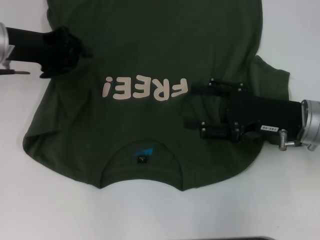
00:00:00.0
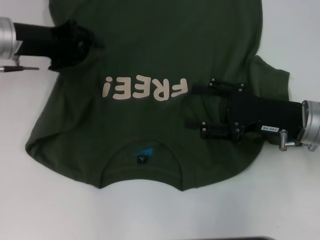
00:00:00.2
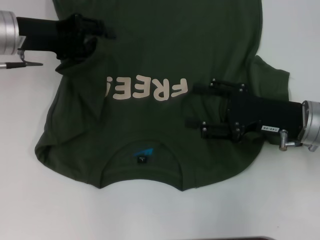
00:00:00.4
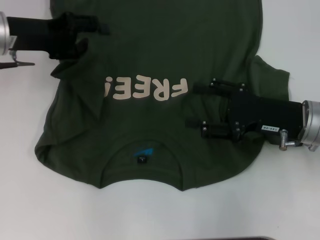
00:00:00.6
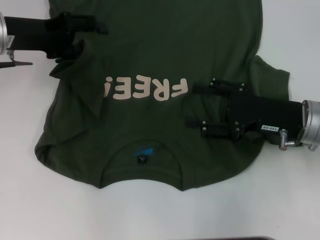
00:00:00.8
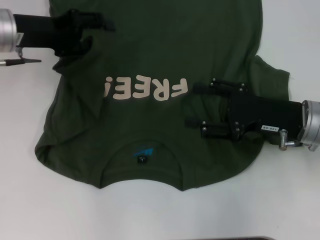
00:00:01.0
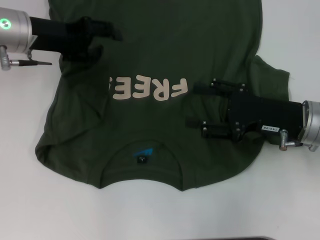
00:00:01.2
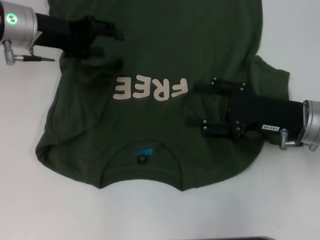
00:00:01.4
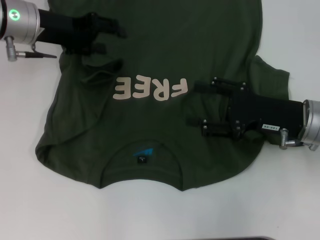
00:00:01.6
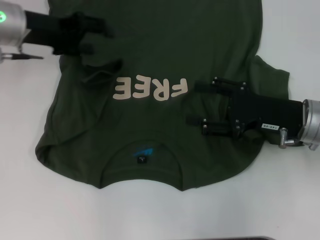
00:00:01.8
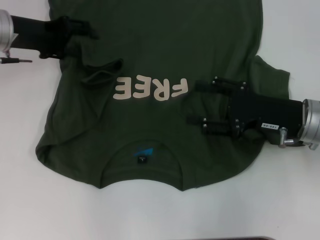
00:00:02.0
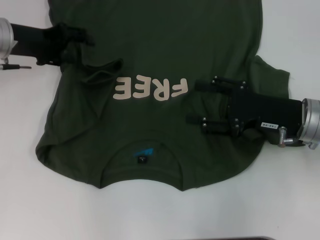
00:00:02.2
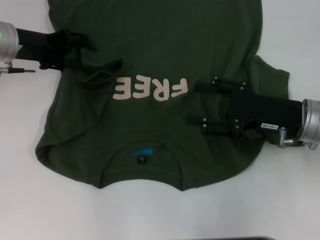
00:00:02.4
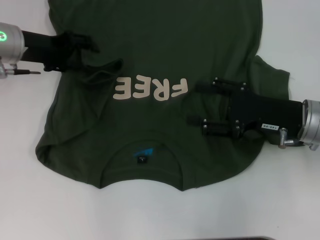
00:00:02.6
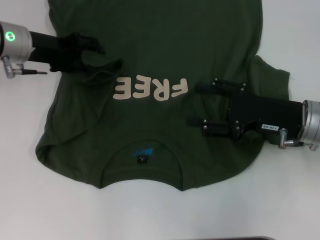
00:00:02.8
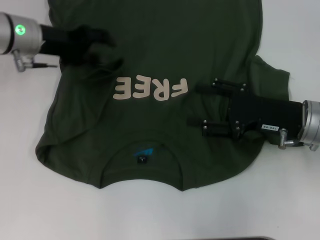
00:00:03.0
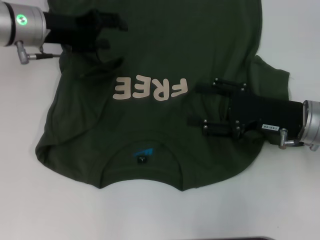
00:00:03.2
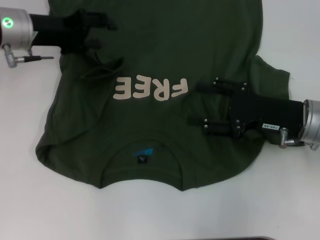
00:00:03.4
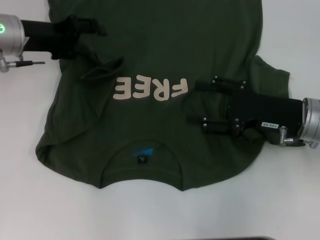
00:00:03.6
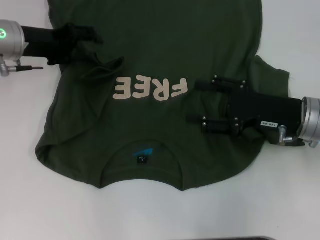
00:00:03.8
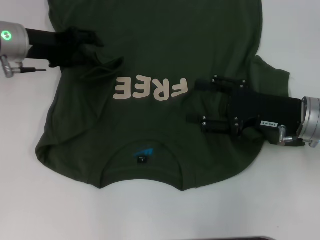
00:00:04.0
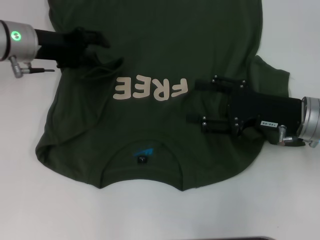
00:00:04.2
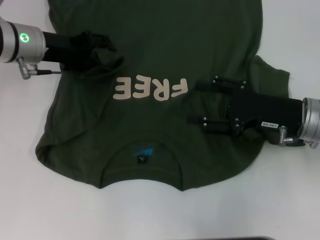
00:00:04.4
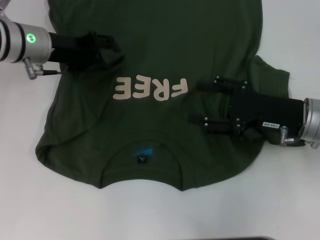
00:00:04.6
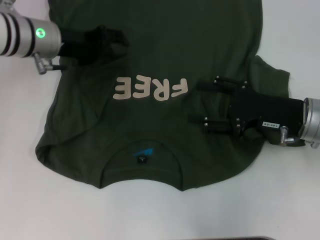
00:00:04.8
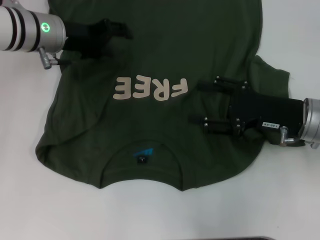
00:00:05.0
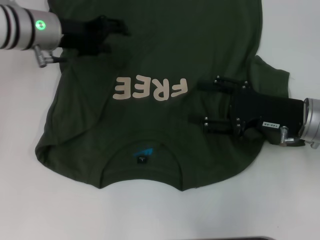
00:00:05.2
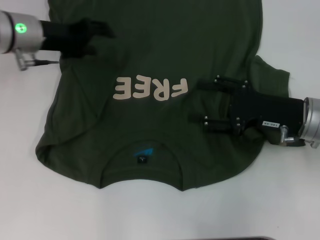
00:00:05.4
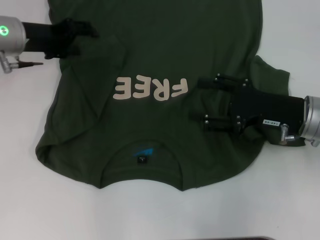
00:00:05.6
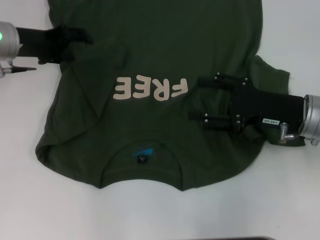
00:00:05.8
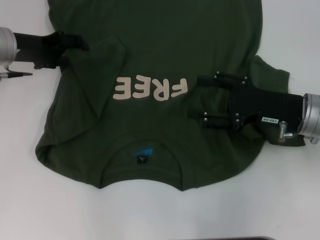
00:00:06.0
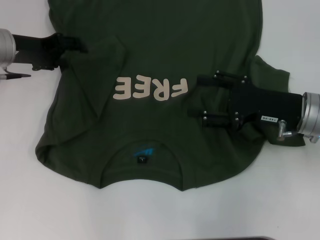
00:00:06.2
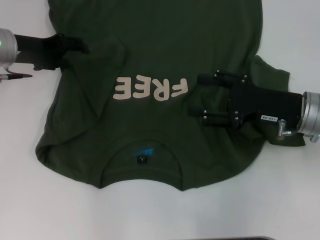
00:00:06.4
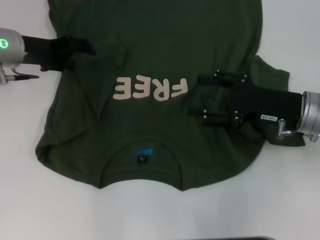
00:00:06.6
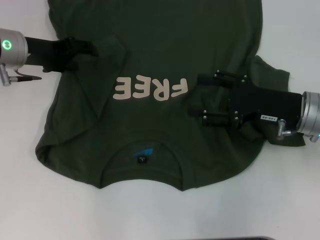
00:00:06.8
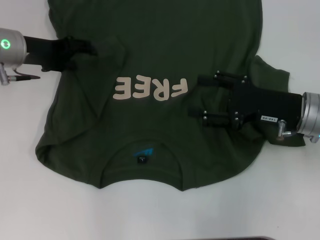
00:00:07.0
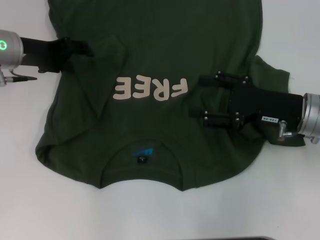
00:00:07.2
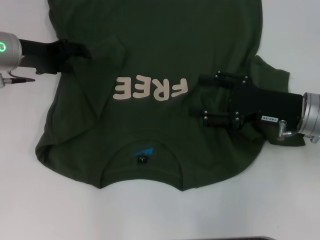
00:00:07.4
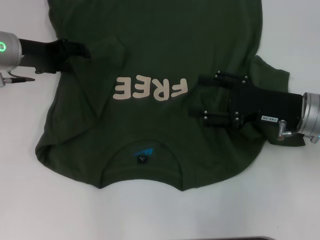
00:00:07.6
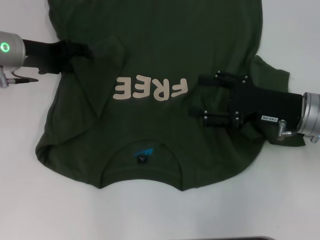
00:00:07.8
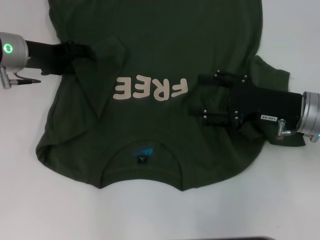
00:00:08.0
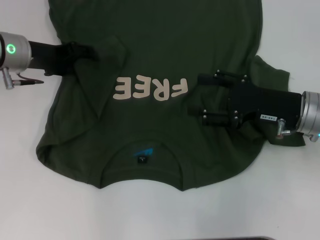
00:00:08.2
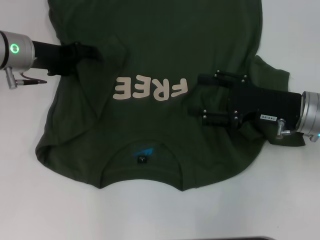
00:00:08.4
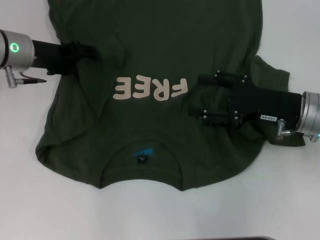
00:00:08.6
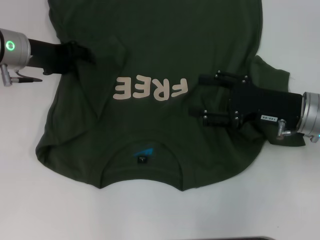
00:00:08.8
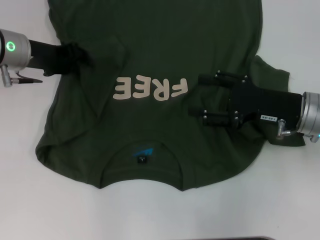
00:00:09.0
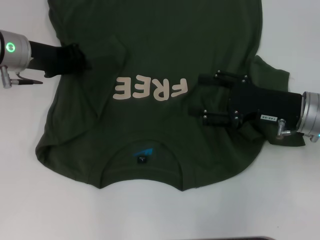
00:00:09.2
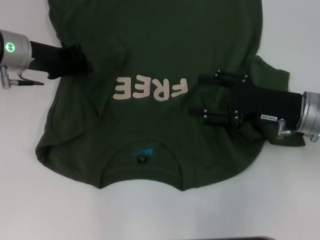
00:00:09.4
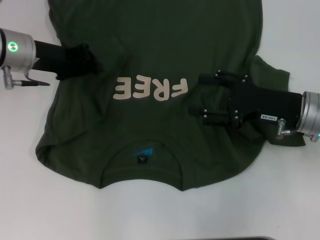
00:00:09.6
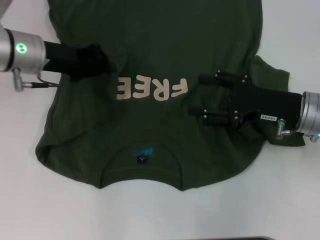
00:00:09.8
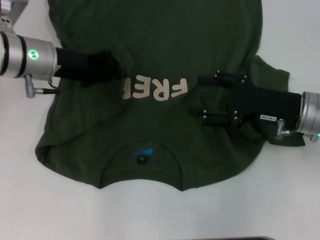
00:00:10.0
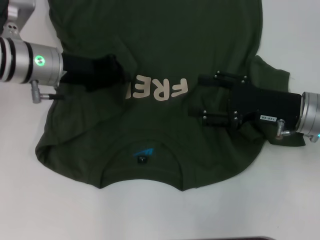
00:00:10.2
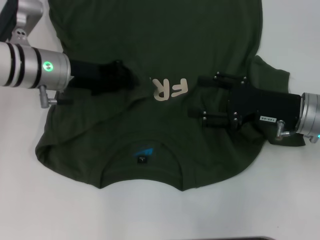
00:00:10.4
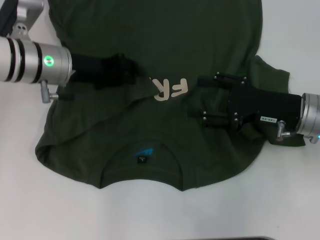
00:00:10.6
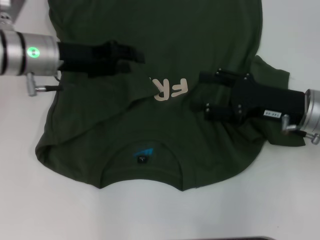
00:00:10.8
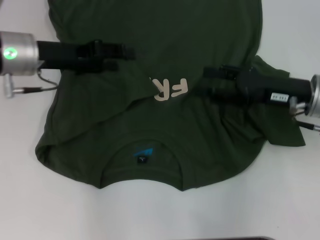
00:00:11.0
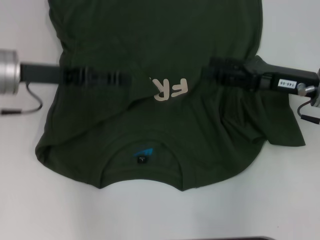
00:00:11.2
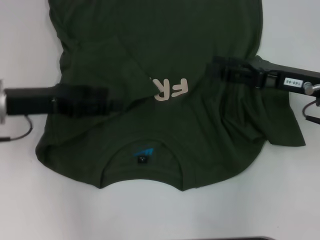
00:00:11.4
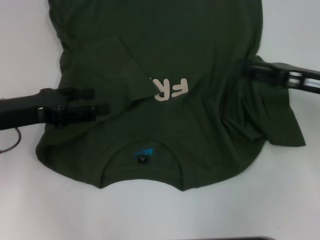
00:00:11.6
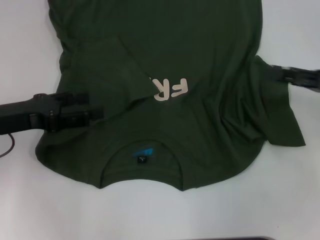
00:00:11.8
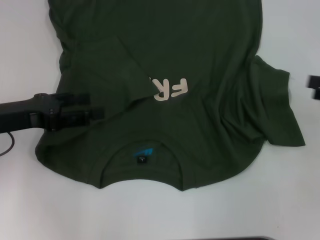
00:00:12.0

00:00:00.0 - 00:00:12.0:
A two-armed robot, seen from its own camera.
Step, 00:00:00.0 - 00:00:10.6: Fold the bottom left sleeve with your left hand.
00:00:00.0 - 00:00:01.6: The left gripper moves about 5 cm, and opens up.
00:00:01.6 - 00:00:06.0: The grippers make only small movements.
00:00:06.0 - 00:00:09.0: The grippers stay close to where they were, moving slightly.
00:00:09.0 - 00:00:10.4: The left gripper shifts approximately 5 cm to the right, and closes its fingers.
00:00:10.4 - 00:00:12.0: The right gripper is displaced to the right by approximately 15 cm; the left gripper heads backward and to the left, covering some 15 cm, and opens its fingers.

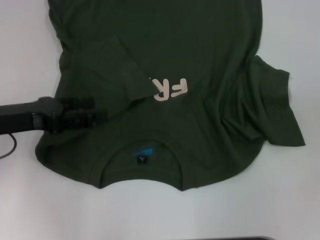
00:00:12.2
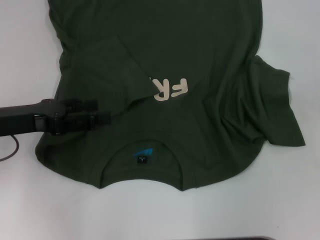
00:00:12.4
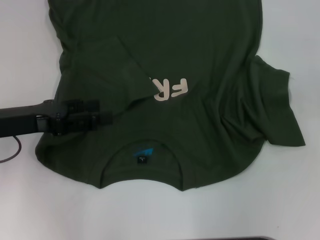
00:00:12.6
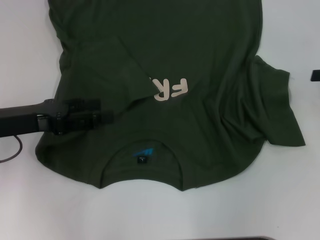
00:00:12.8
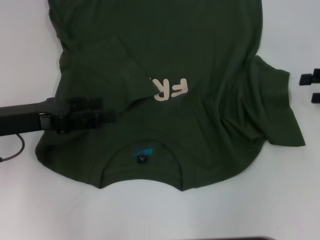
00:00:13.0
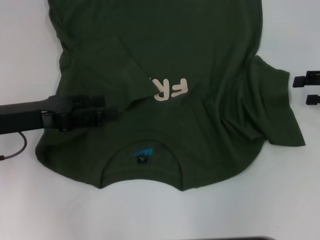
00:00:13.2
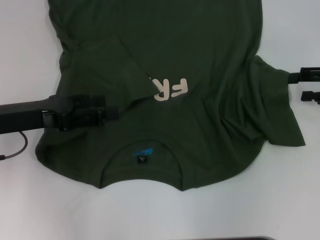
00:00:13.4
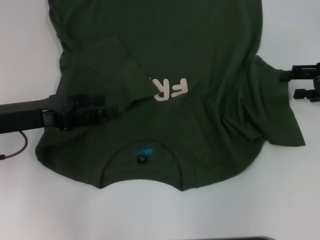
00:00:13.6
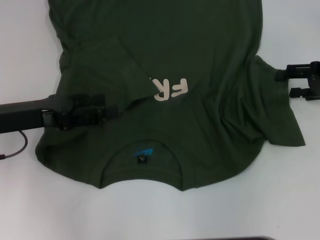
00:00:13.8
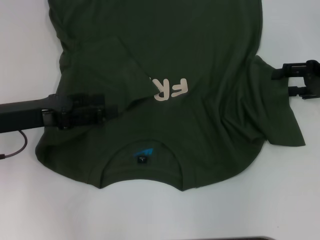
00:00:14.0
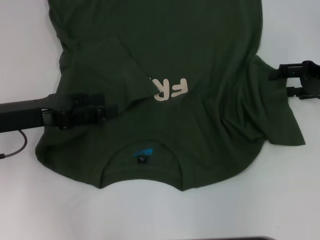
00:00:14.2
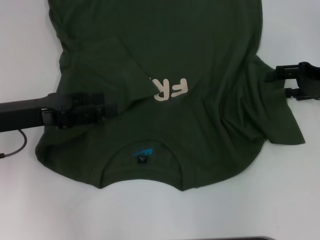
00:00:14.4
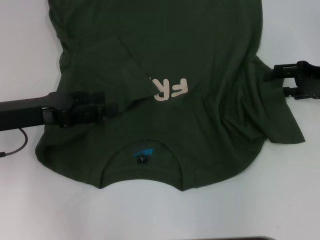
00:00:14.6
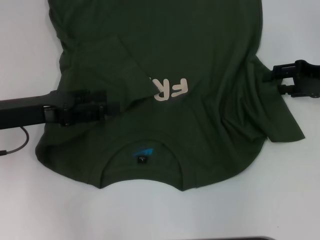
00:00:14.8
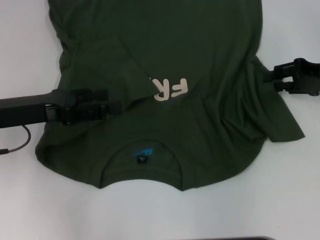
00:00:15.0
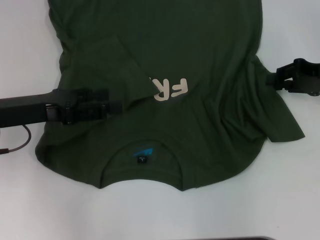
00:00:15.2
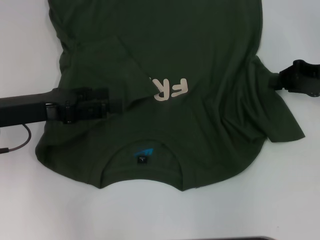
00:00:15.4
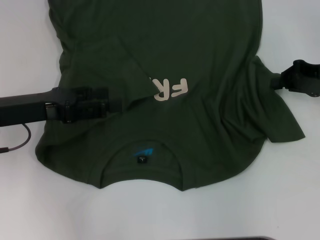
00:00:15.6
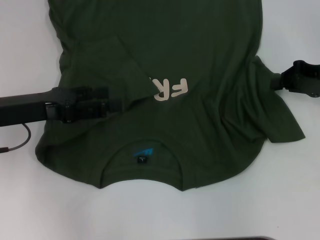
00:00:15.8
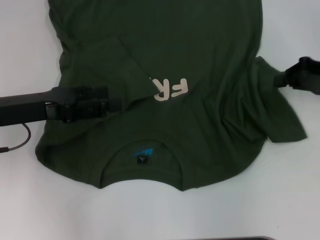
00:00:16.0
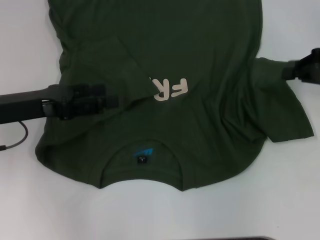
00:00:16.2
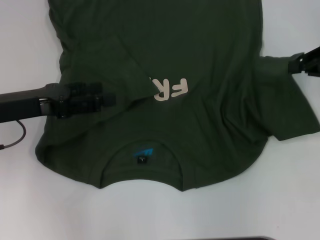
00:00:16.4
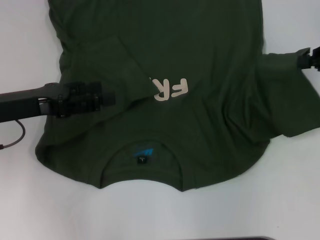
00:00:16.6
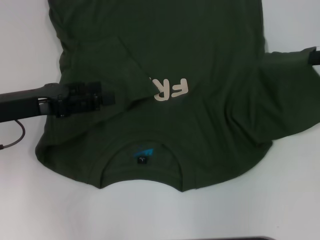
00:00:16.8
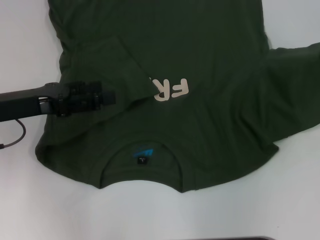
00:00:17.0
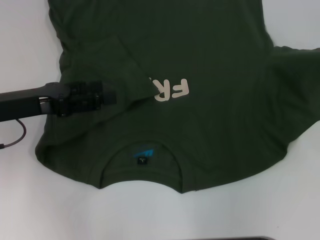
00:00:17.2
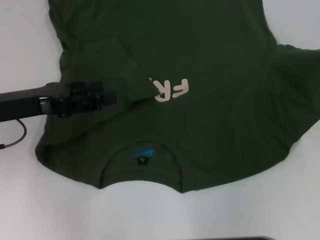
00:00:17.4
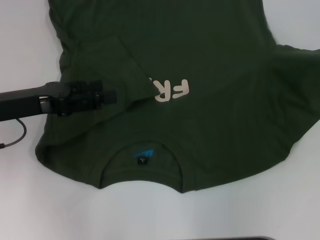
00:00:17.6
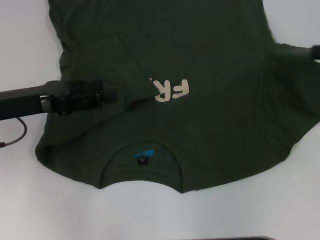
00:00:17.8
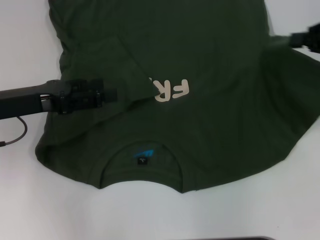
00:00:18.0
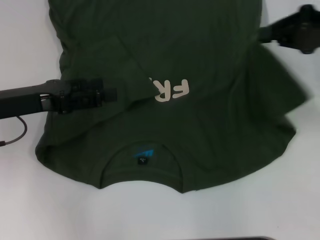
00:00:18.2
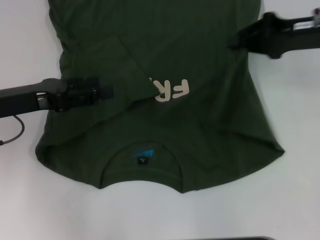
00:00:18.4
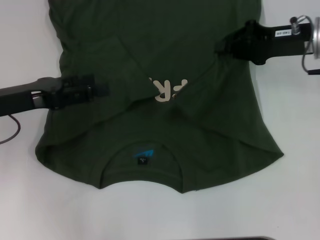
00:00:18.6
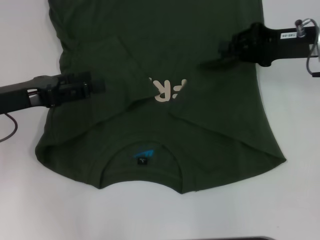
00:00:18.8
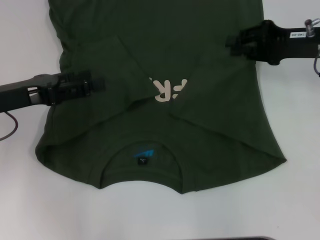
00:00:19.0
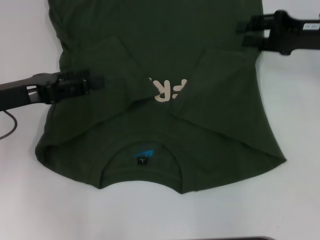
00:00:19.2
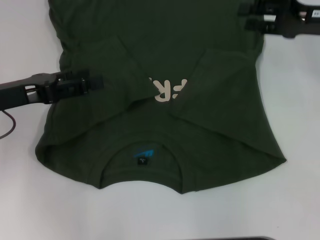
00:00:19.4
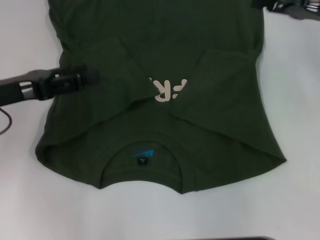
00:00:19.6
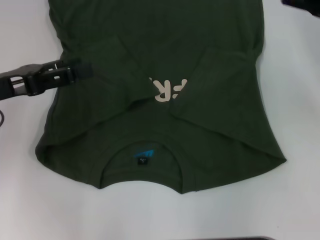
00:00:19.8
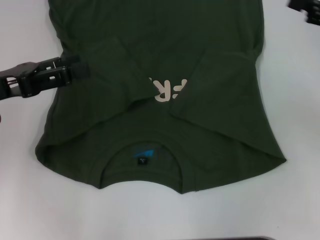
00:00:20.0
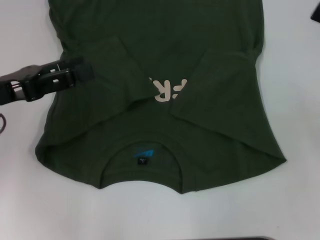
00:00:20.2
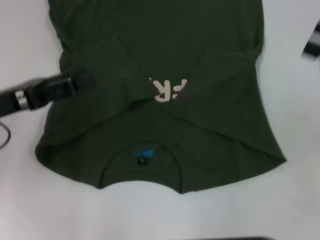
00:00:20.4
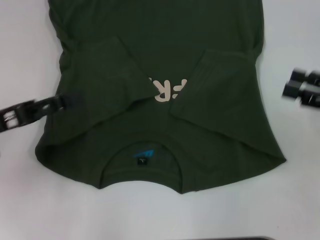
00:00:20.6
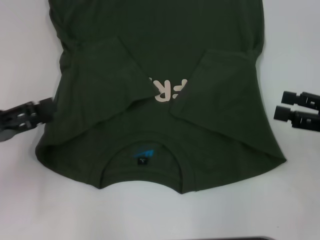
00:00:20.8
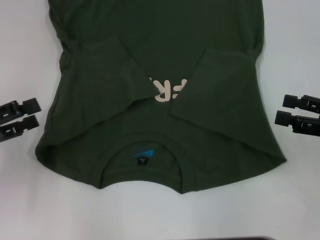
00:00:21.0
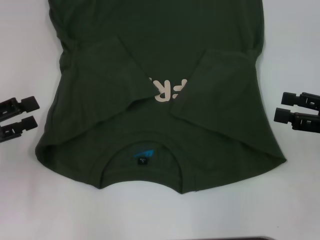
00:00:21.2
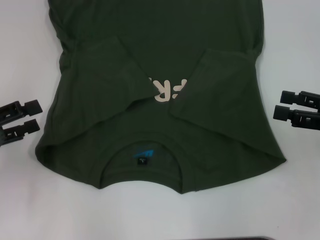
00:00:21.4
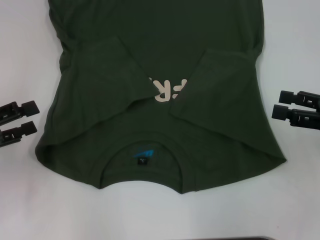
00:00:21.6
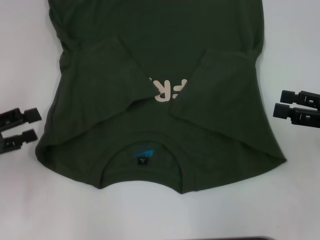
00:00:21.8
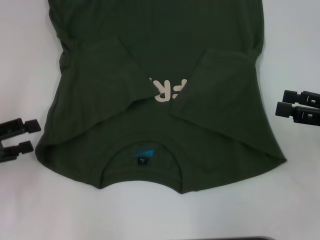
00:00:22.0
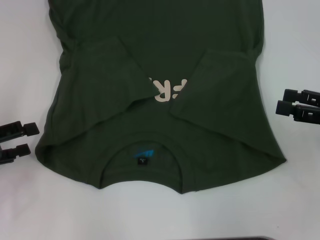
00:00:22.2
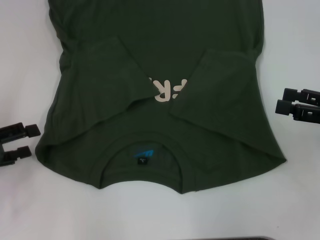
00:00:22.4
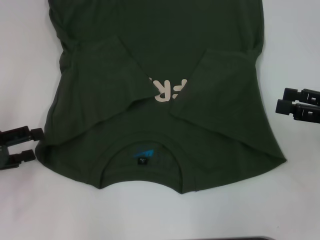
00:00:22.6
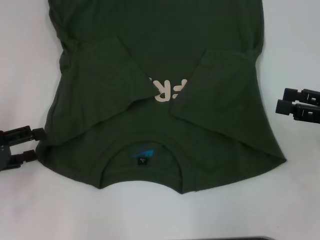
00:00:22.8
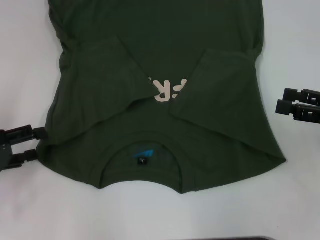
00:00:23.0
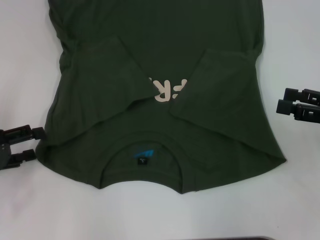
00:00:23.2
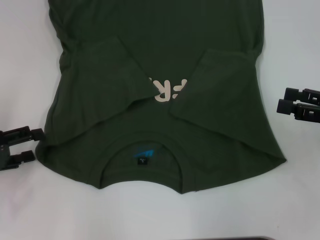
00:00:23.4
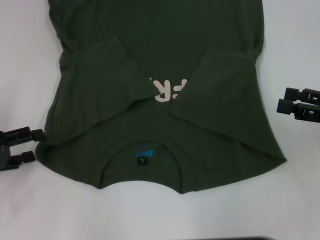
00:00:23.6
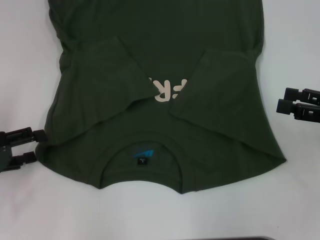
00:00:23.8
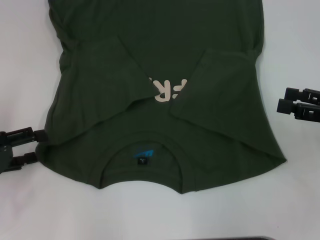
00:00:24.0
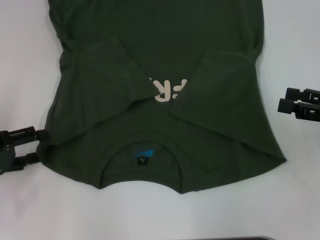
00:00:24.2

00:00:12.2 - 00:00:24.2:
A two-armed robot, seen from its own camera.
Step, 00:00:12.2 - 00:00:18.8: Fold the bottom right sleeve with your right hand.
00:00:12.2 - 00:00:13.8: The right gripper is displaced forward and to the left by approximately 10 cm.
00:00:13.8 - 00:00:15.2: The right gripper closes its fingers.
00:00:15.2 - 00:00:16.6: The right gripper goes some 5 cm upward, and closes.
00:00:16.6 - 00:00:18.2: The right gripper is displaced to the left by about 5 cm.
00:00:18.2 - 00:00:19.8: The right gripper opens up.
00:00:19.8 - 00:00:21.2: The right gripper heads backward and downward, covering approximately 10 cm, while the left gripper heads to the left and backward, covering roughly 10 cm.
00:00:21.2 - 00:00:22.6: There are only small adjustments of the grippers.
00:00:22.6 - 00:00:24.2: Neither gripper changes place.
